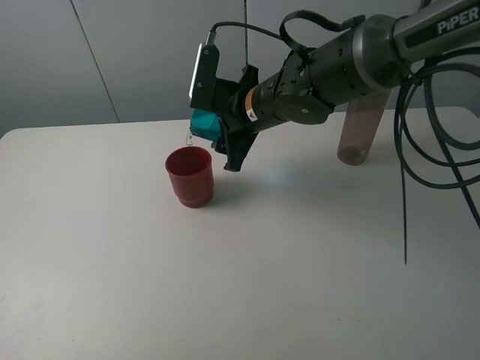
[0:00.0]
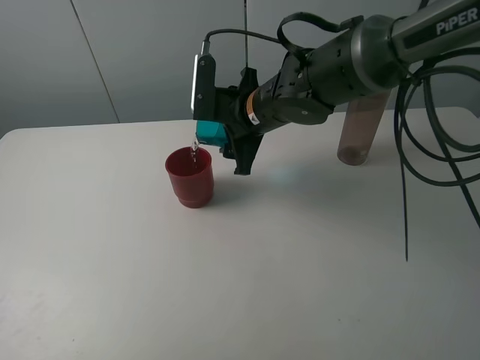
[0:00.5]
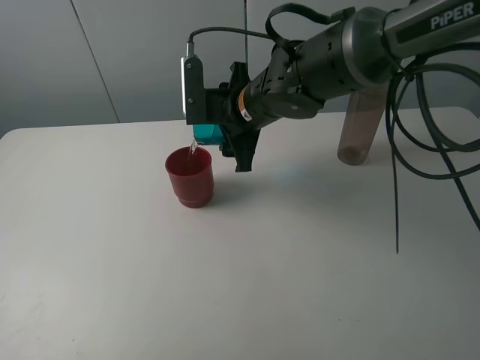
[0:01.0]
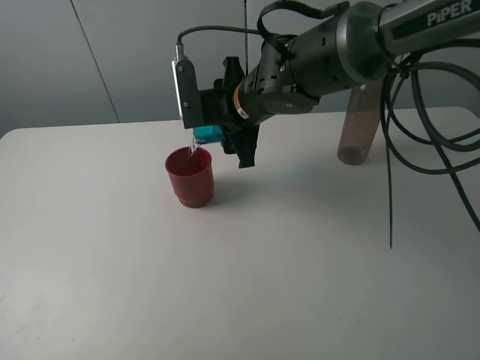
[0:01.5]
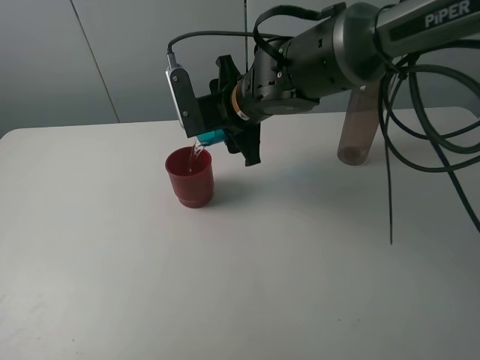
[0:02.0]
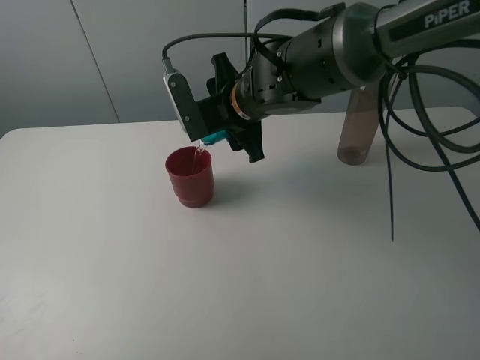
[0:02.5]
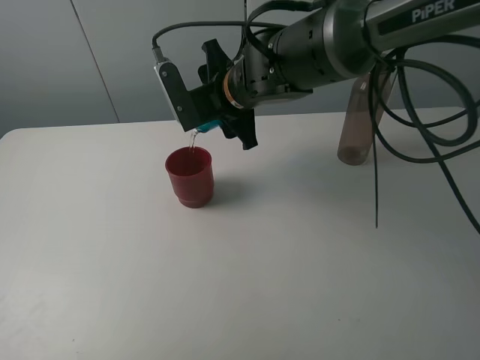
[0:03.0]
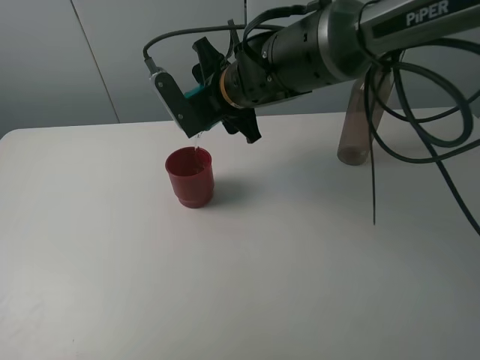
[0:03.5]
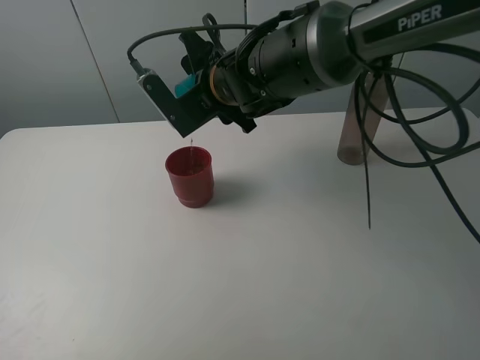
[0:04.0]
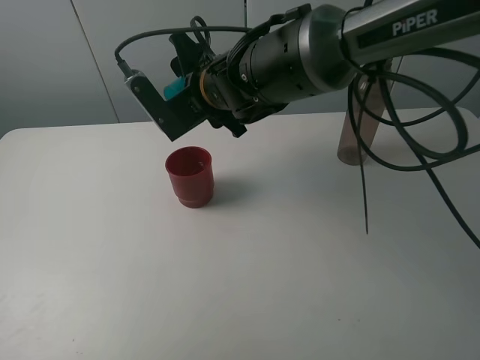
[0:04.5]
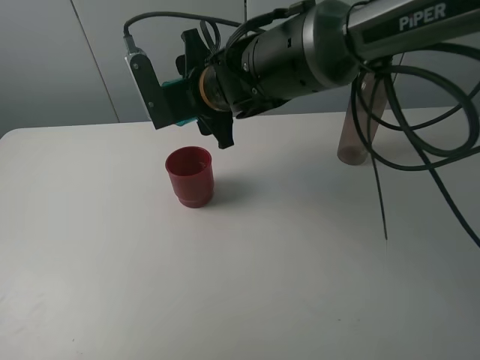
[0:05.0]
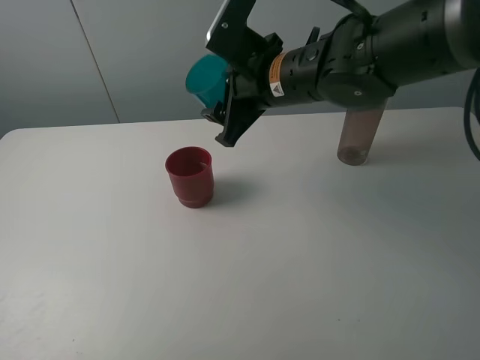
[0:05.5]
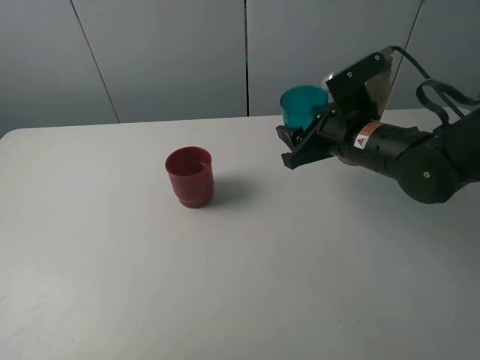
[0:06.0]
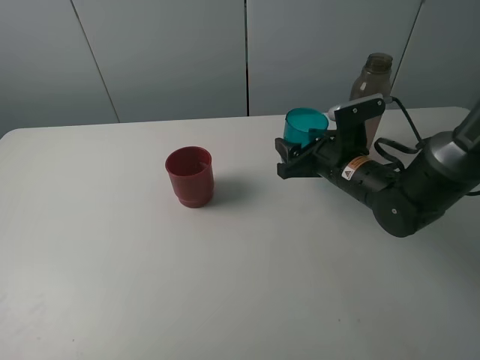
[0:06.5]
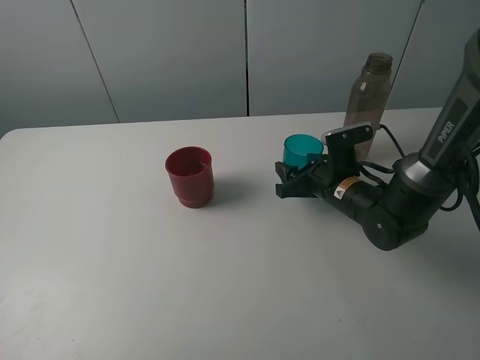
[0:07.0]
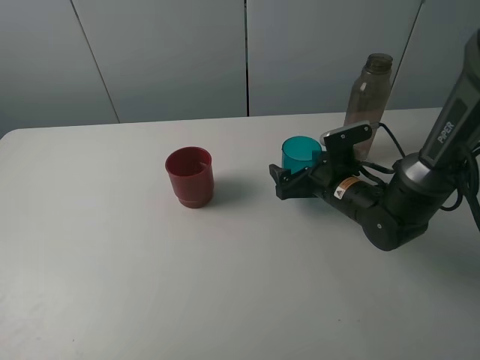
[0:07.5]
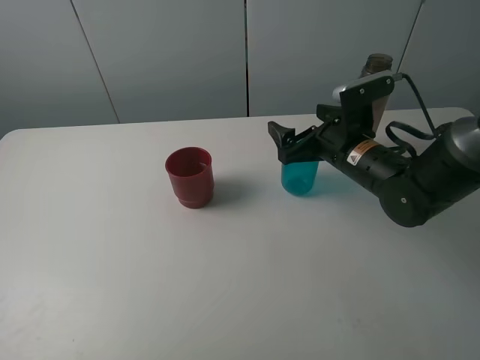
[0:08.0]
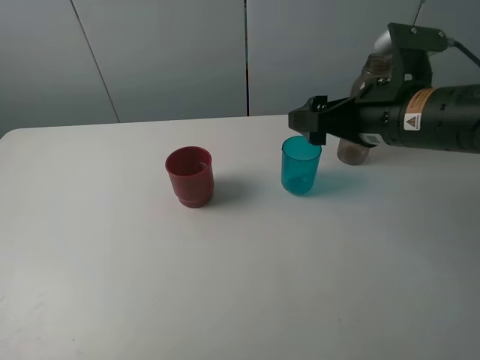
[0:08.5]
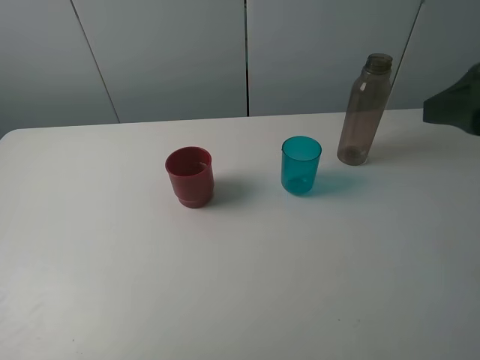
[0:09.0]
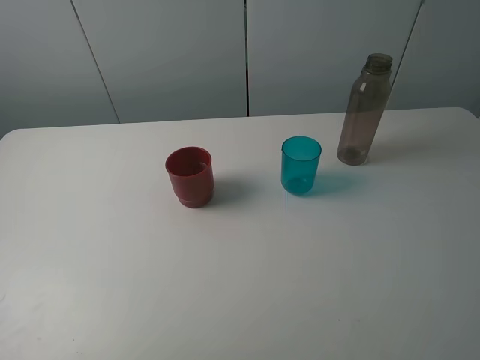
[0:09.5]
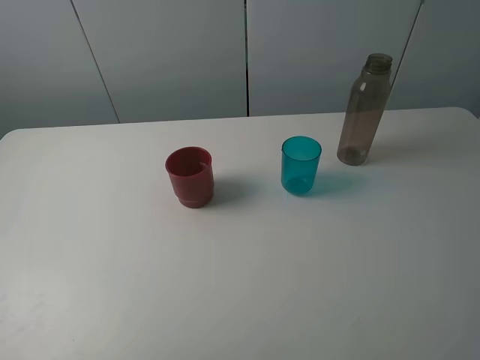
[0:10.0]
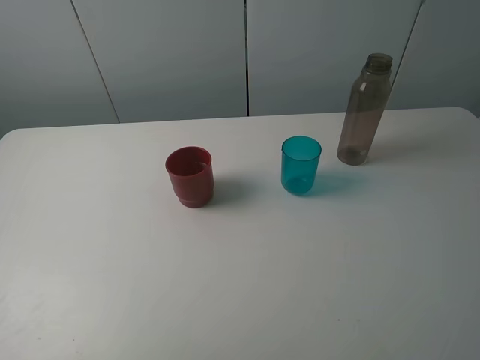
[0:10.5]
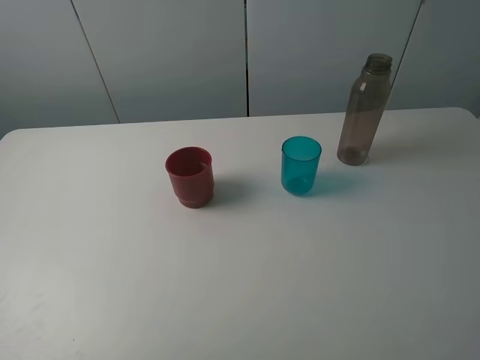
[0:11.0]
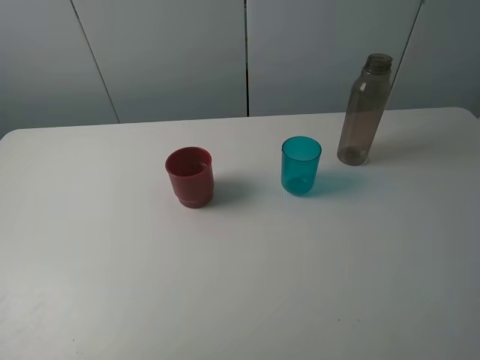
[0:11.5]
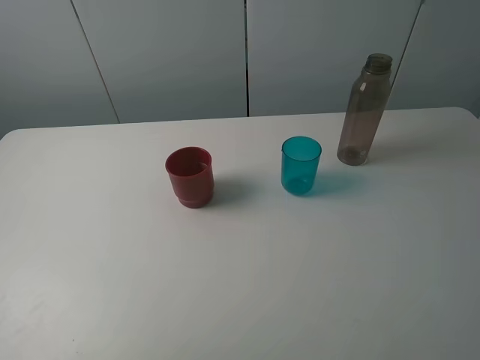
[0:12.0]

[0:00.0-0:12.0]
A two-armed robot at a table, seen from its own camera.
Task of the whole recording: pick up the bottle and pour water into the cup, then pick up the cup containing water and pour it into another cup.
Step, 0:00.0 to 0:04.5: Pour water from blue cup to red cup with the right gripper.
Step, 0:05.0 to 0:07.5: Place the blue cup with the right gripper.
0:04.0 to 0:06.0: The right gripper travels to the right by some 15 cm.
0:06.0 to 0:08.0: The right gripper goes downward and returns, approximately 10 cm each way, and opens.
0:08.0 to 0:10.0: The right gripper travels backward, upward and to the right by roughly 40 cm.

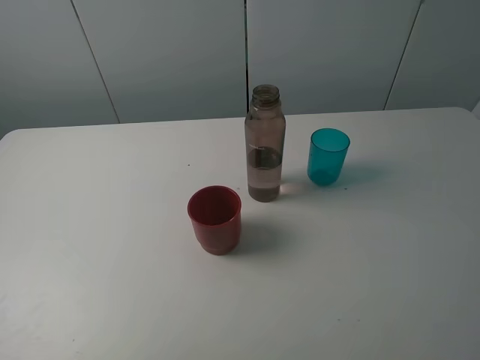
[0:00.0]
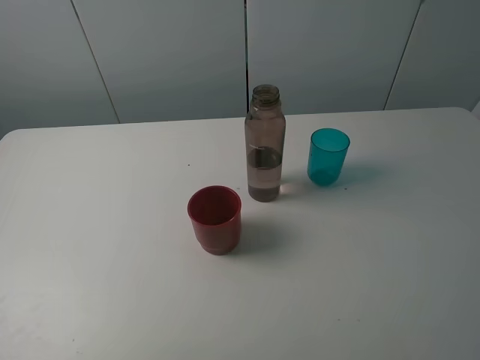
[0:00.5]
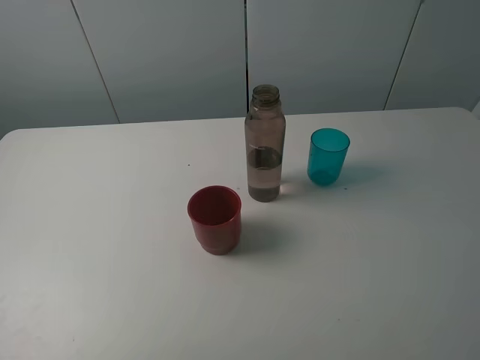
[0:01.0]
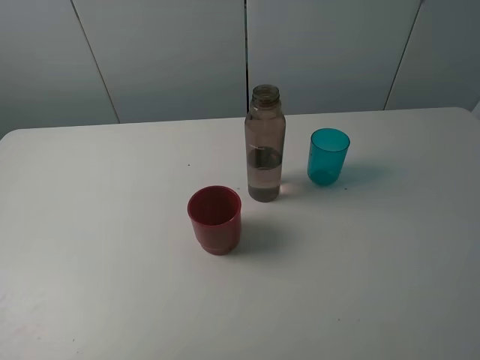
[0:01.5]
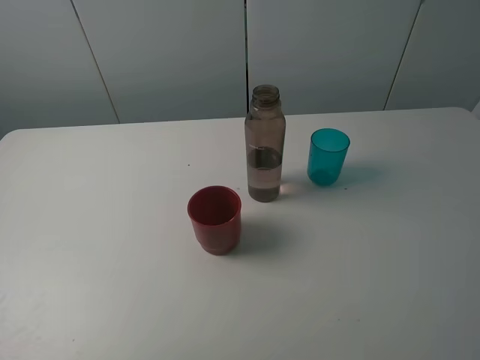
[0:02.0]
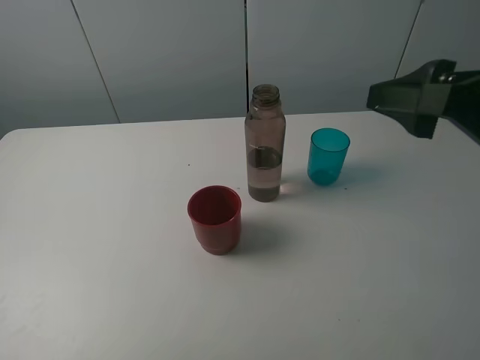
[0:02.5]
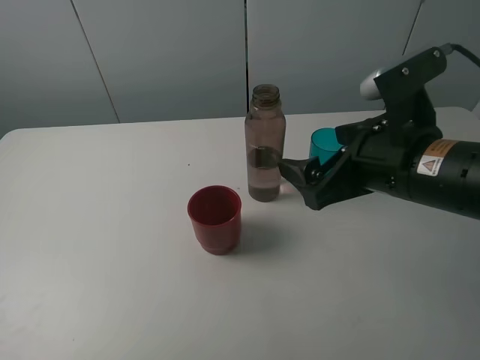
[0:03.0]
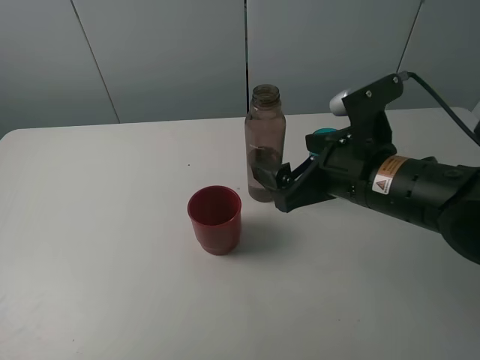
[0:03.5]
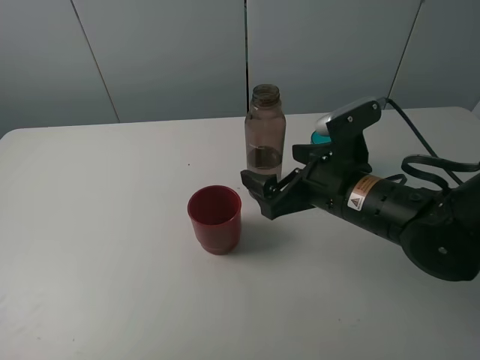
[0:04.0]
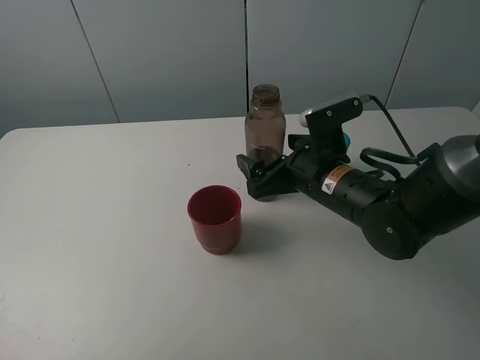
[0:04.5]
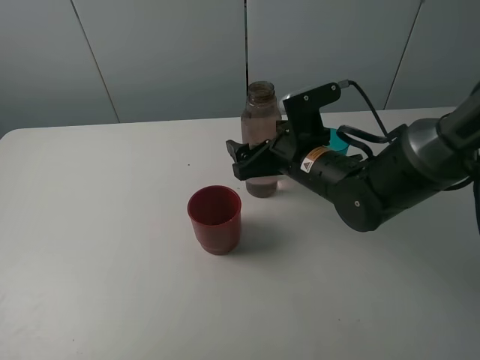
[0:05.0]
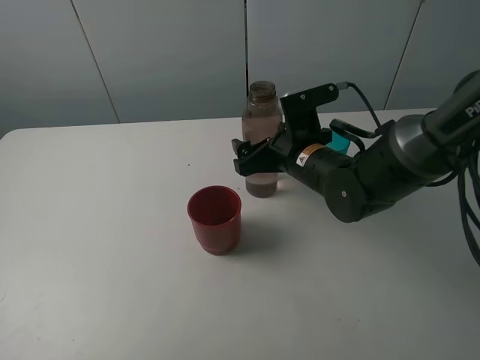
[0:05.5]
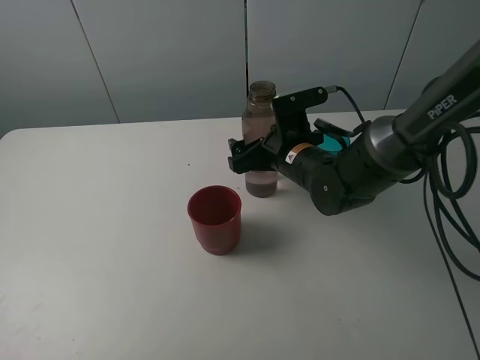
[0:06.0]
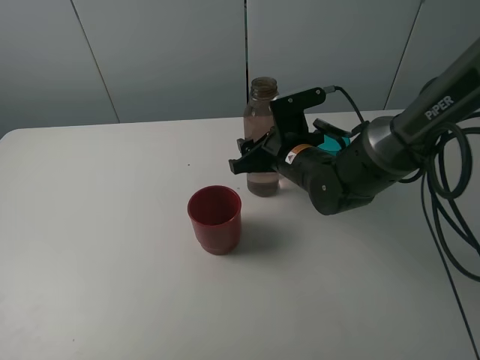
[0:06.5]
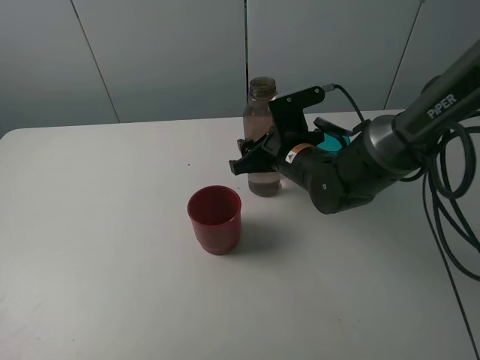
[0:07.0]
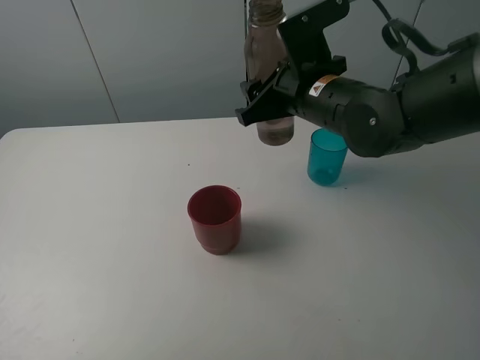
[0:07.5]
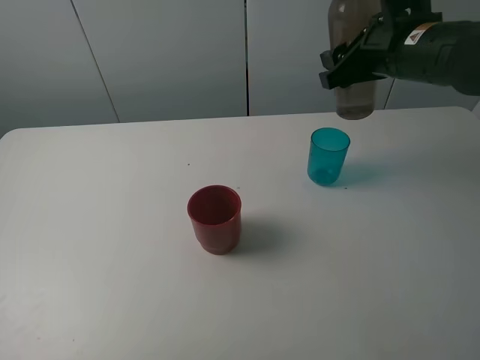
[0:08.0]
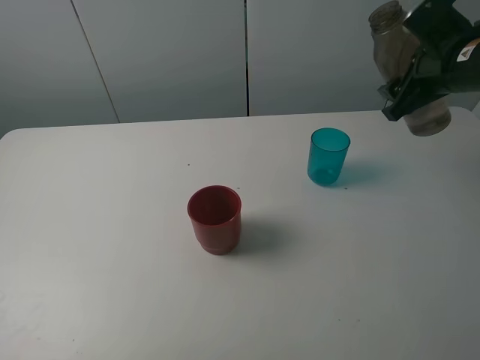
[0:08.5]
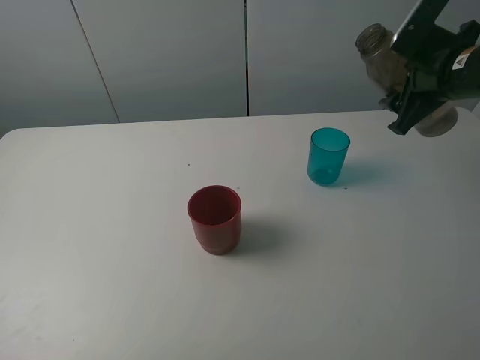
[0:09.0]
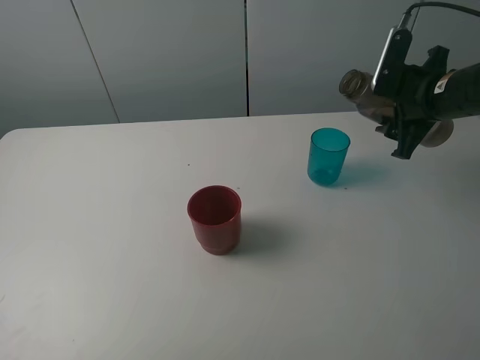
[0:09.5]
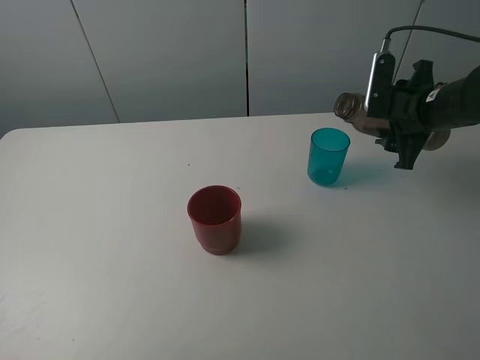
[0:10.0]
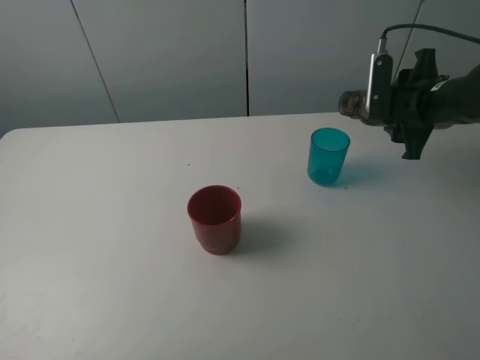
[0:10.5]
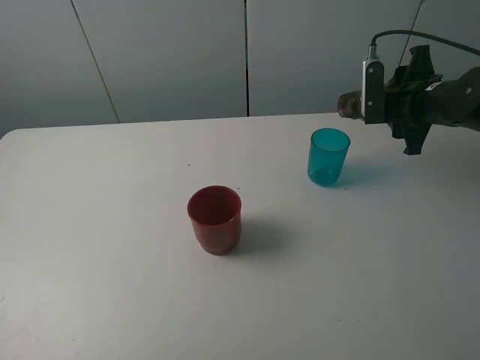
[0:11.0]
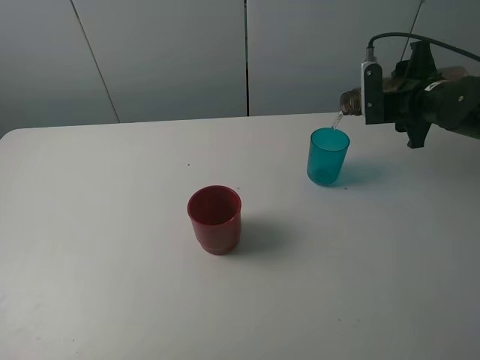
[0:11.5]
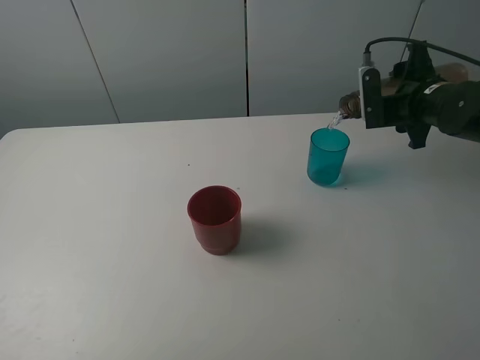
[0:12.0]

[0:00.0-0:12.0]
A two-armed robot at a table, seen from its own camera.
Task of the whole recording: pick up the bottle and pour water into the cup, then pick up the cup containing water and pour it into another cup.
Step, 0:00.0 to 0:06.0: Grasp the brown bottle with the right gripper.
0:02.0 to 0:04.0: The right gripper moves downward, to the left and forward, roughly 30 cm.
0:04.0 to 0:06.0: The right gripper travels forward by about 10 cm.
0:06.0 to 0:08.0: The right gripper travels upward and to the right by some 20 cm, and closes its fingers.
0:08.0 to 0:10.0: The right gripper heads downward and to the right, covering roughly 10 cm.

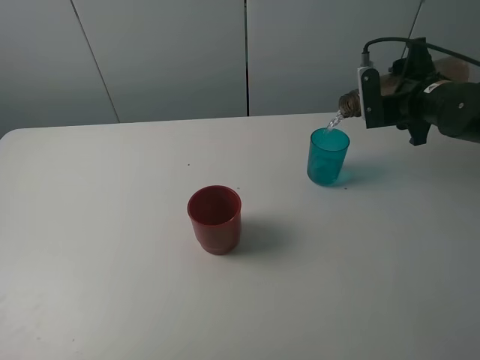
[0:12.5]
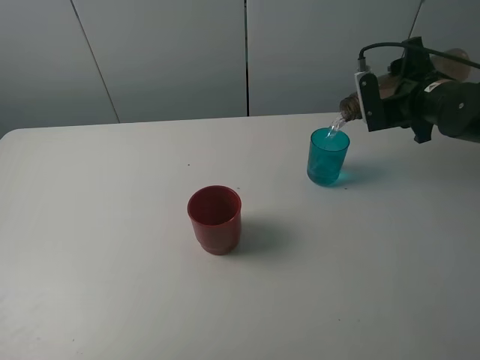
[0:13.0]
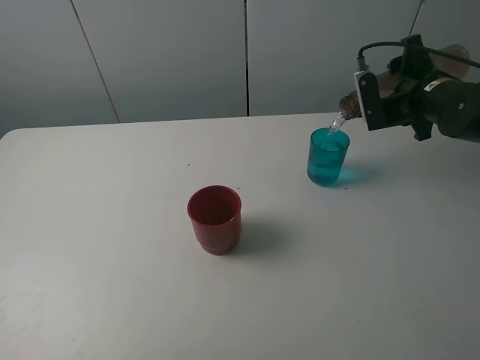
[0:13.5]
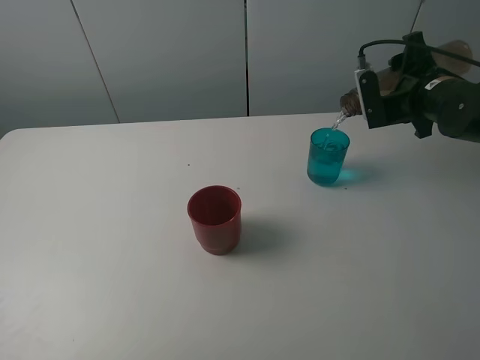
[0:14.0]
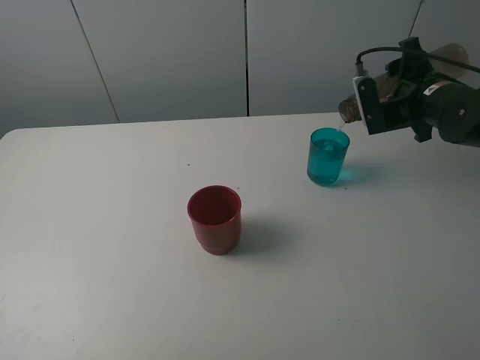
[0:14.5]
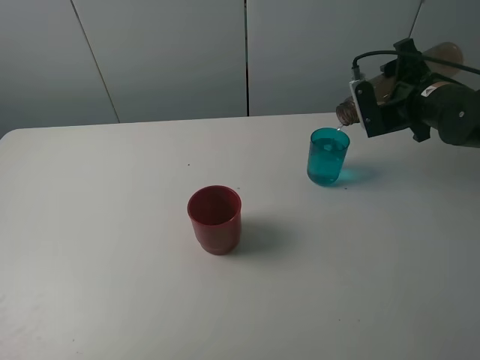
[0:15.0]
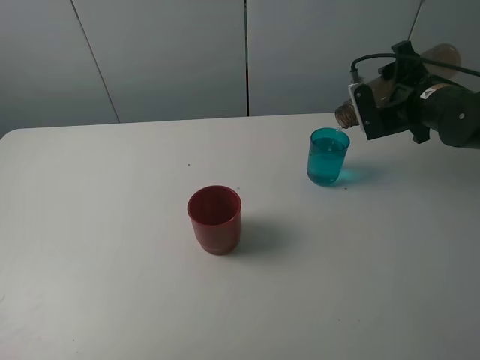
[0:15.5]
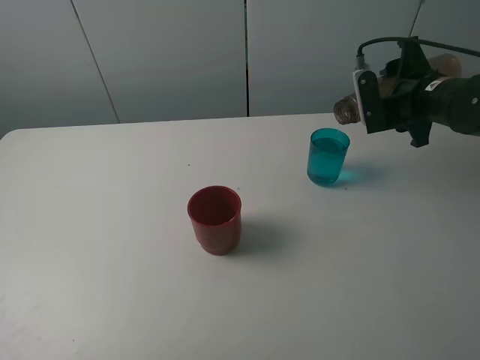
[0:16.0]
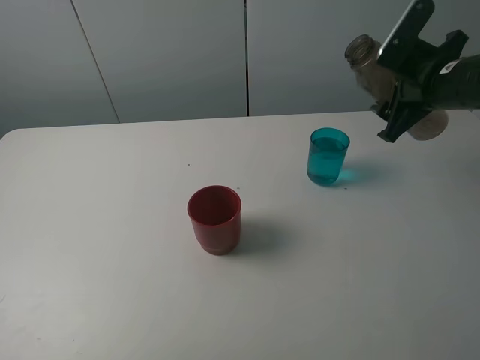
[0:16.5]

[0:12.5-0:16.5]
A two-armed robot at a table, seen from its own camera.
Task of the whole recording: pick up the bottle and pour water into the cup, then pick up the cup containing water and pour it into another cup.
Step, 0:12.5 to 0:15.5: Pour water from brown bottle to blue cup with the right gripper.
0:12.5 to 0:14.5: There are only small adjustments of the grippers.
0:14.5 to 0:16.5: The right gripper moves about 5 cm.
